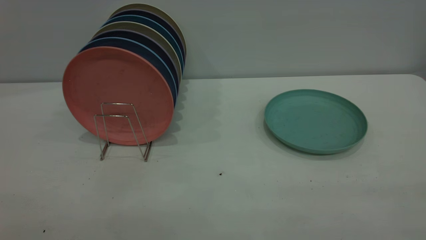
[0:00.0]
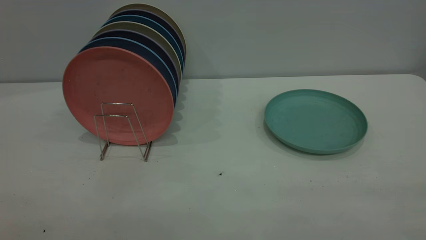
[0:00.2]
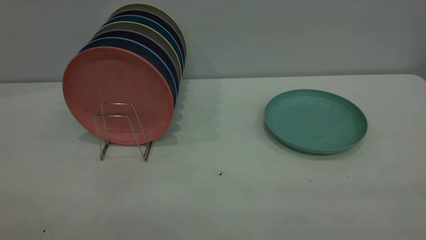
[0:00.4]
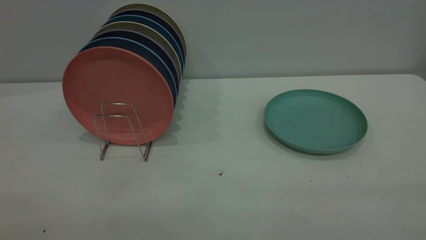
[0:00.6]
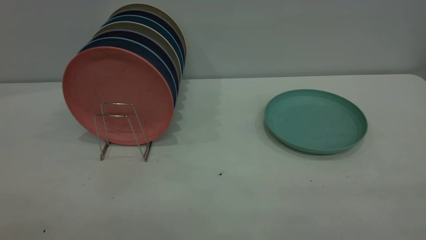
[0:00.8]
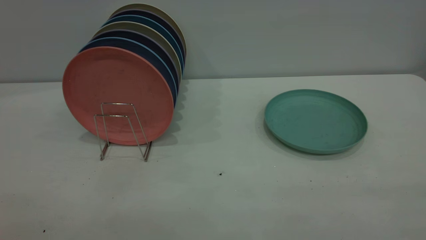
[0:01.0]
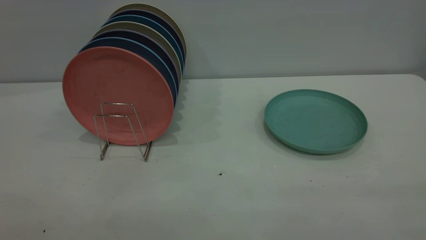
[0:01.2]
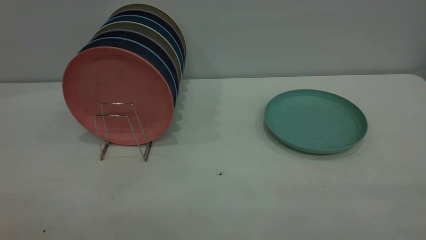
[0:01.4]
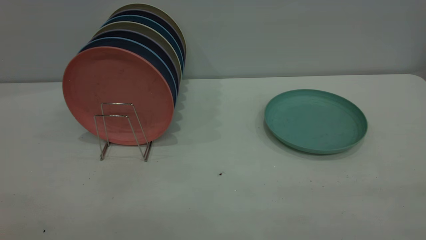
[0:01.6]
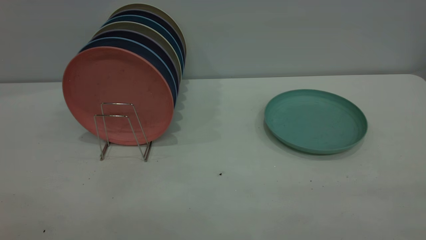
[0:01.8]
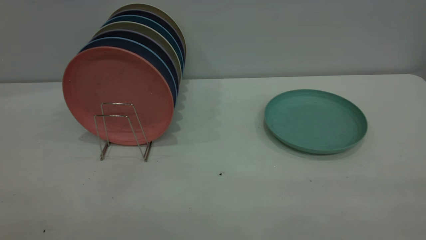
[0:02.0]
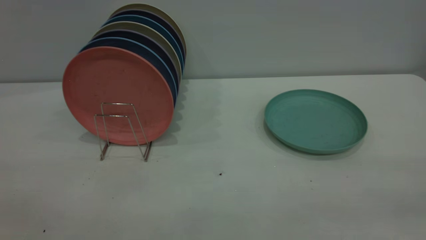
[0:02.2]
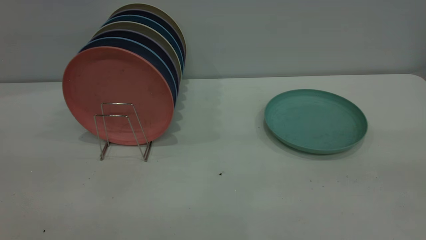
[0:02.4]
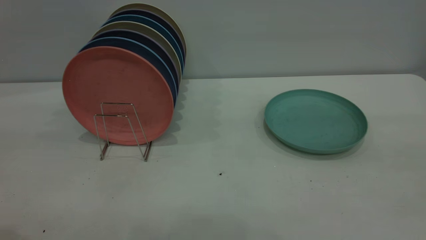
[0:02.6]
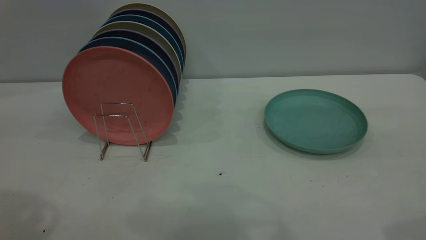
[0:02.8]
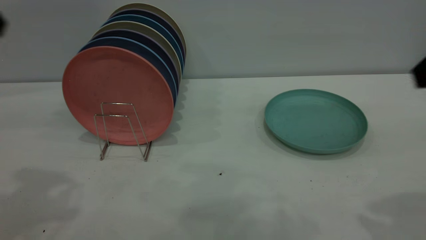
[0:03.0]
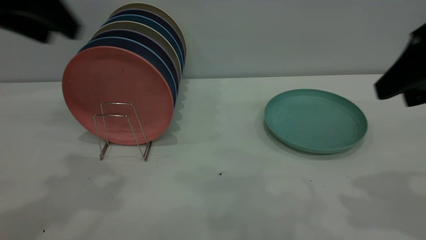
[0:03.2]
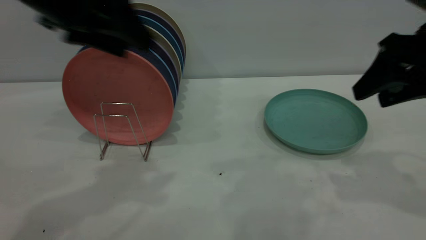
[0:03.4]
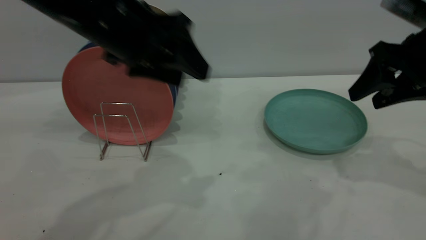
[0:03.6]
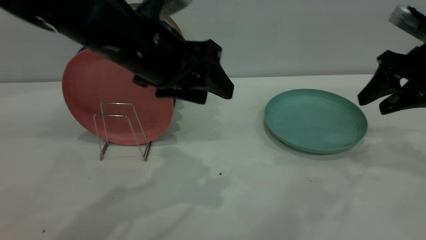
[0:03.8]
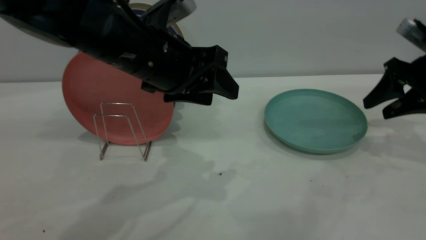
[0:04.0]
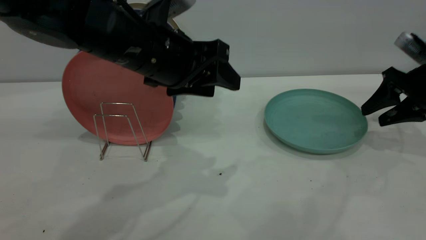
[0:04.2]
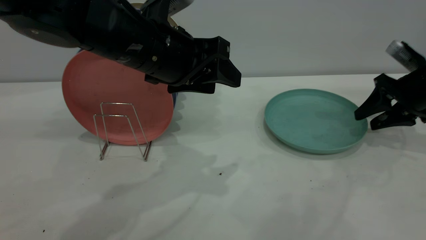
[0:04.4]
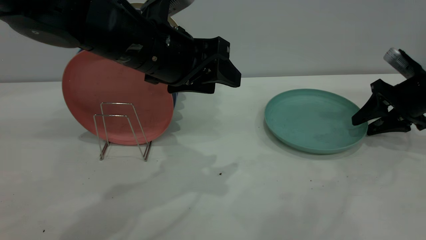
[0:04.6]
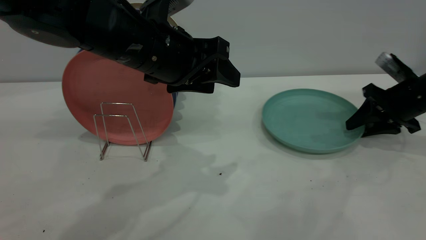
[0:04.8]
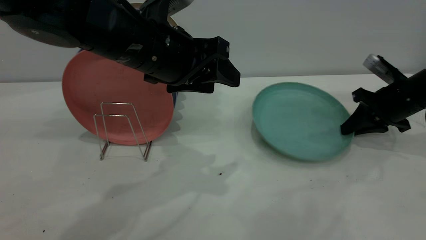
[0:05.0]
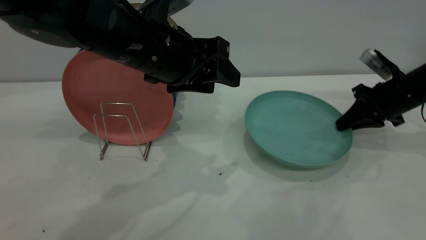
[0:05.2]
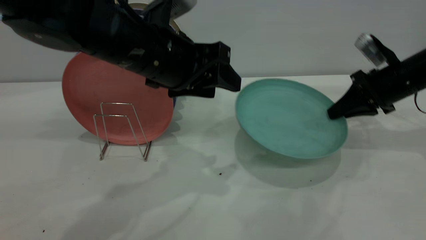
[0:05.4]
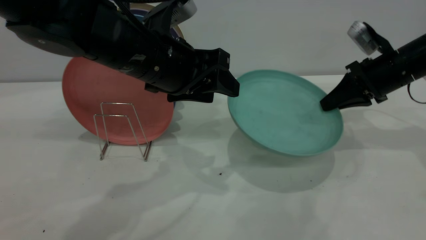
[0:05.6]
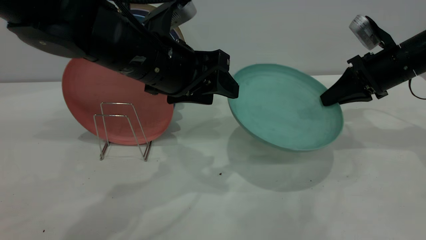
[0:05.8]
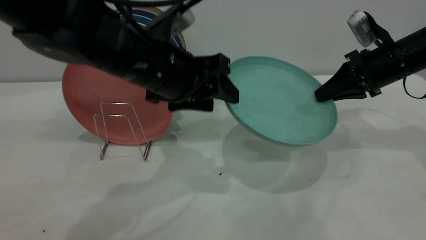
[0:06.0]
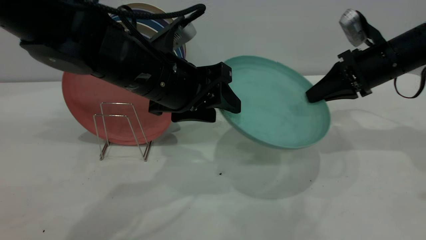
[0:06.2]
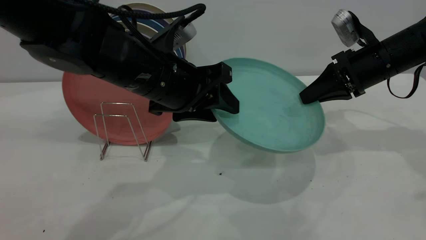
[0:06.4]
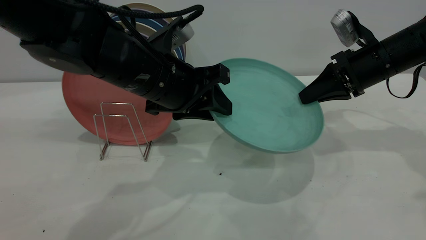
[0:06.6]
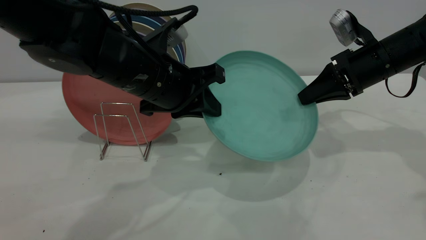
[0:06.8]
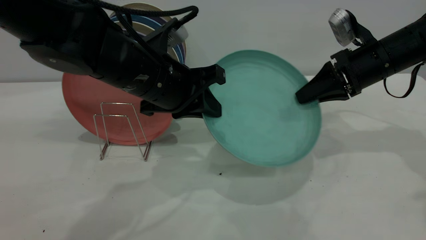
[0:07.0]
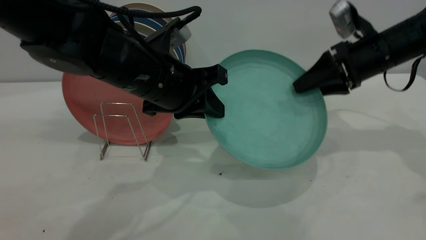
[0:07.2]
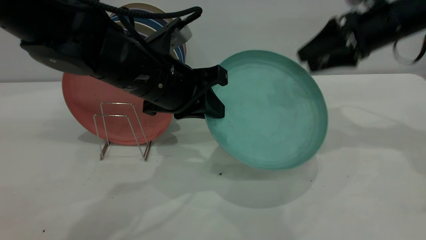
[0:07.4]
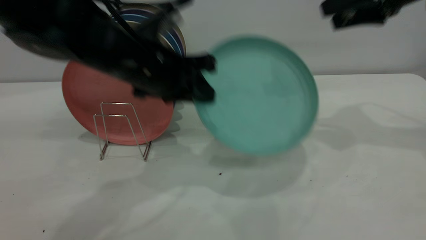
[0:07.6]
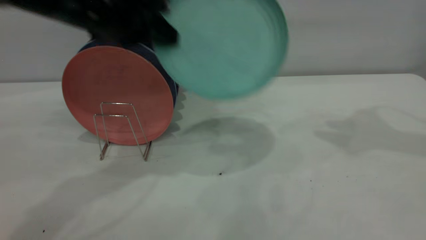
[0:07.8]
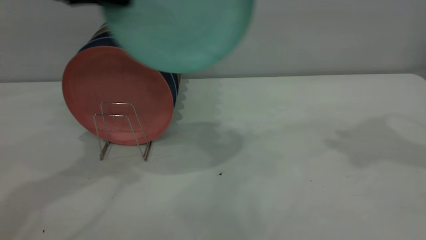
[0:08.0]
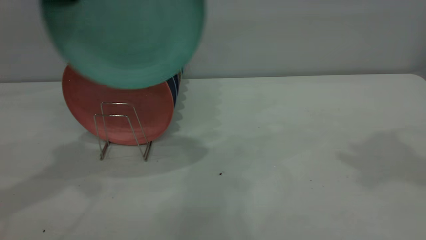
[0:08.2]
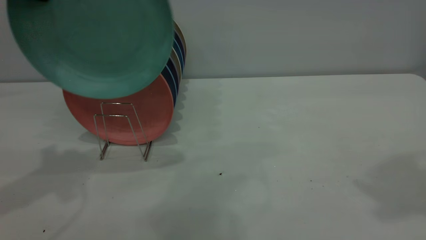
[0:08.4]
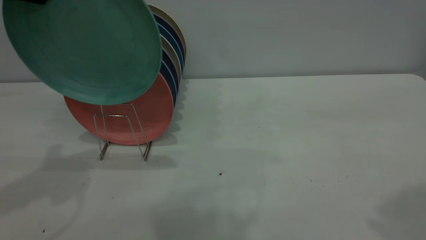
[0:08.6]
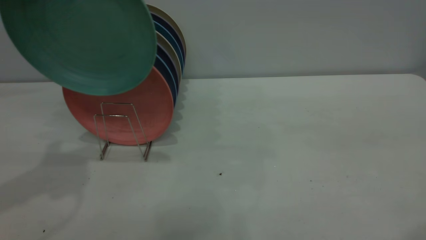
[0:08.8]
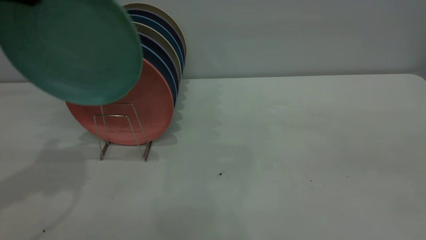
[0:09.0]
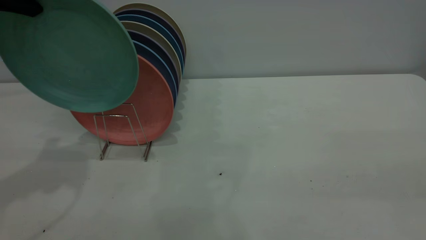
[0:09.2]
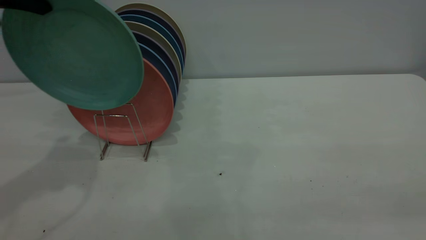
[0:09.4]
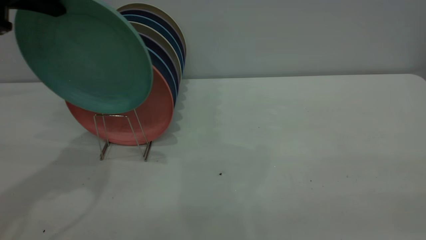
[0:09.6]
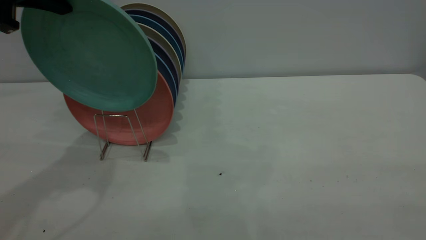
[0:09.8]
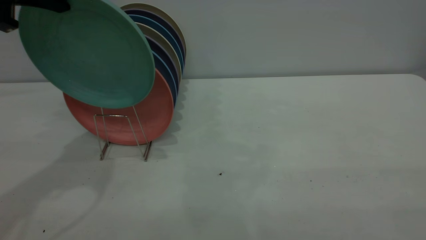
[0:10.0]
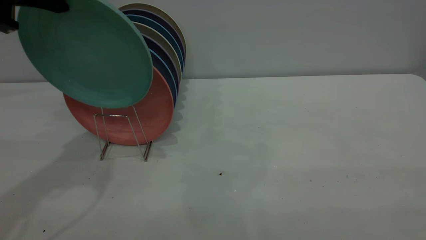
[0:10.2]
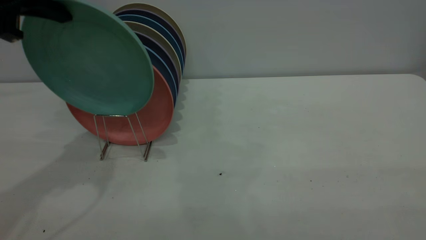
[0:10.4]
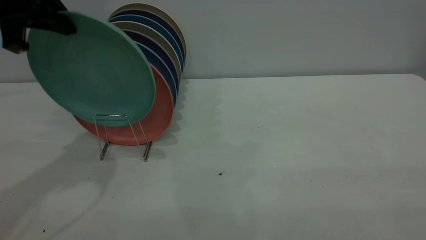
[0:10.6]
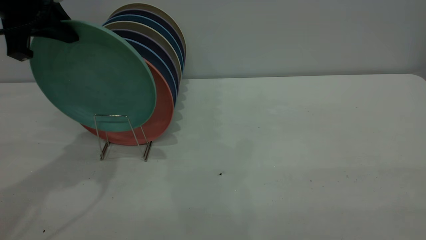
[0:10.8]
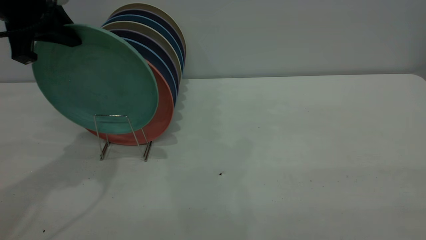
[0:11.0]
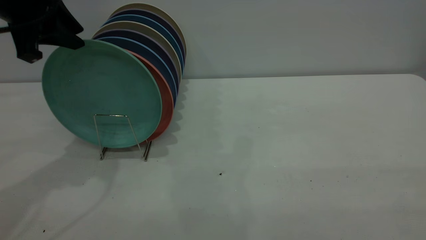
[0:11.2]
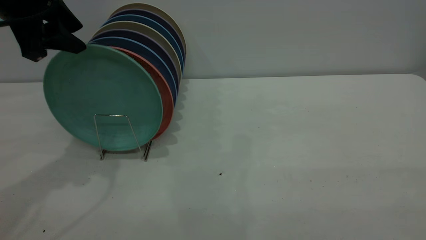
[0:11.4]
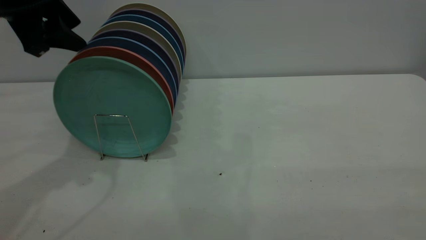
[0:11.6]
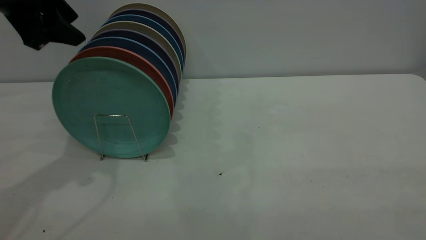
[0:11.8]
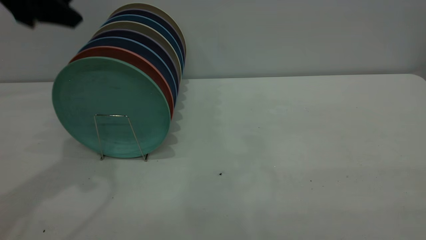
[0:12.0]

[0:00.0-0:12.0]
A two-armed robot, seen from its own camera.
Task of the whole recording: the right gripper grasp the green plate, the right gripper pass the green plate to the left gripper, and the left gripper place the green plate on the plate rack.
Step, 0:00.0 to 0:05.2: Pick up the plate with the right gripper.
Step, 0:05.4 to 0:07.2: Pass the plate from the right gripper to the left gripper.
Step, 0:07.6 to 0:11.6: Place the plate on the shelf.
0:00.0 to 0:01.6: Both grippers stay put.
0:03.0 to 0:04.4: The left gripper heads to the right and downward, covering approximately 20 cm, while the right gripper shifts some 30 cm forward and downward.
0:04.4 to 0:06.0: The right gripper goes roughly 5 cm to the left, and closes its fingers.
0:06.0 to 0:07.6: The left gripper closes its fingers; the right gripper goes about 15 cm upward, and opens.
0:07.6 to 0:09.0: The left gripper goes about 20 cm to the left and upward, while the right gripper is displaced backward by some 35 cm.
0:10.4 to 0:12.0: The left gripper opens up.
